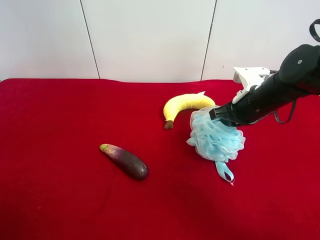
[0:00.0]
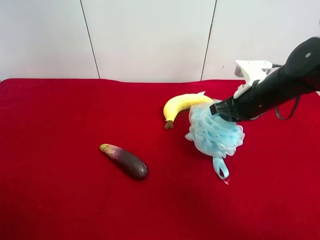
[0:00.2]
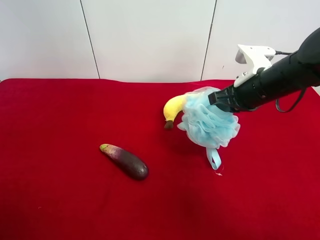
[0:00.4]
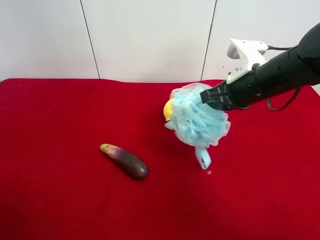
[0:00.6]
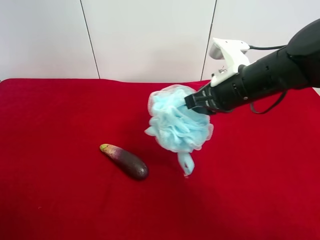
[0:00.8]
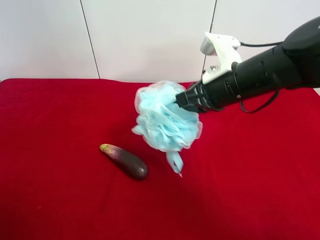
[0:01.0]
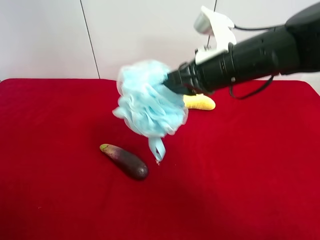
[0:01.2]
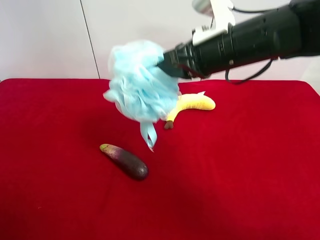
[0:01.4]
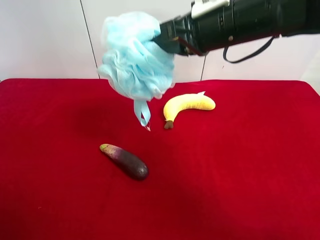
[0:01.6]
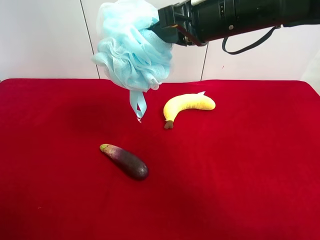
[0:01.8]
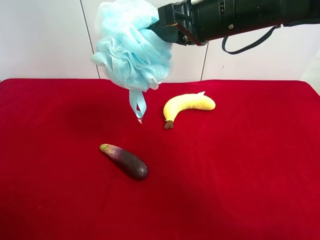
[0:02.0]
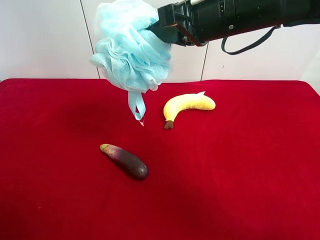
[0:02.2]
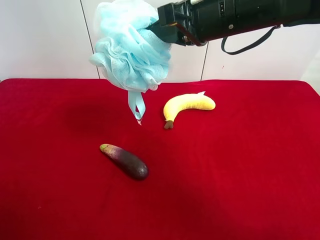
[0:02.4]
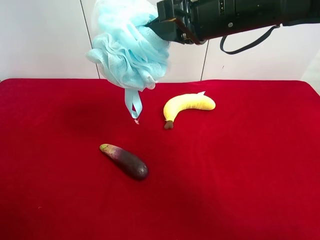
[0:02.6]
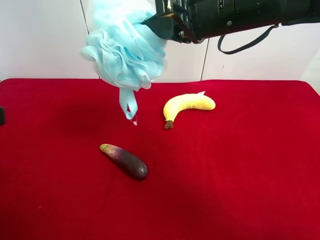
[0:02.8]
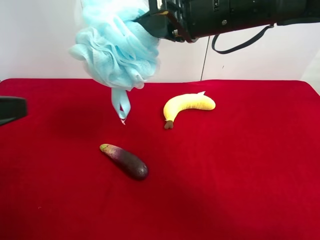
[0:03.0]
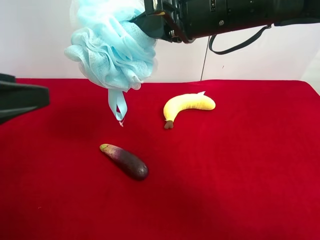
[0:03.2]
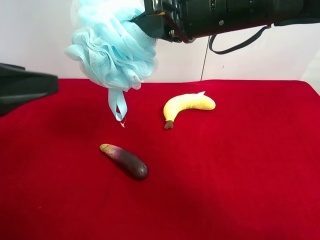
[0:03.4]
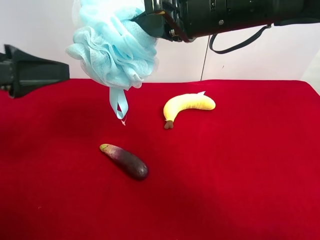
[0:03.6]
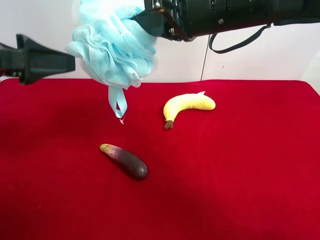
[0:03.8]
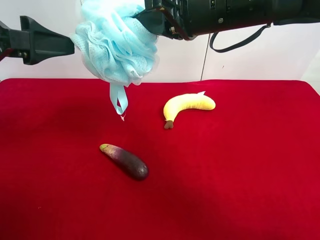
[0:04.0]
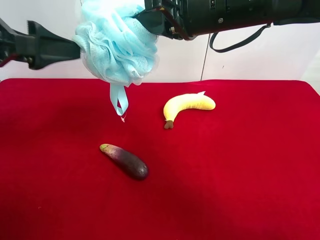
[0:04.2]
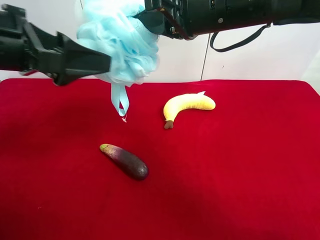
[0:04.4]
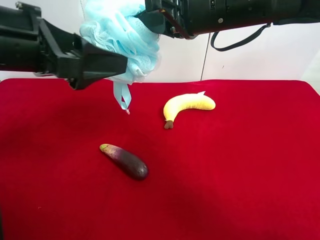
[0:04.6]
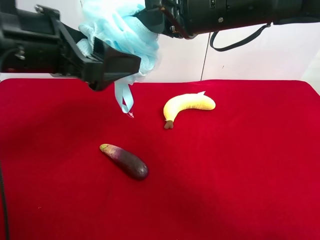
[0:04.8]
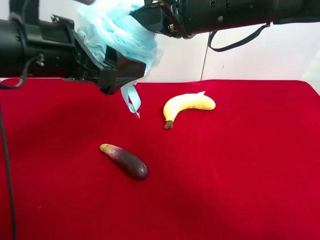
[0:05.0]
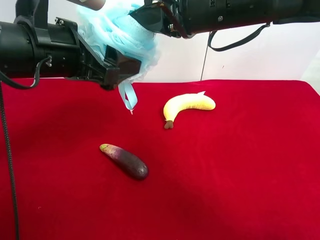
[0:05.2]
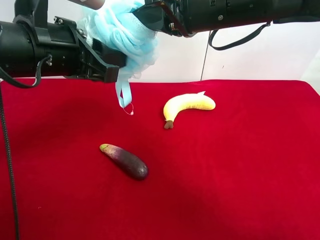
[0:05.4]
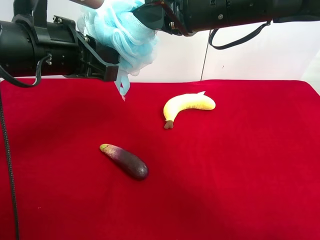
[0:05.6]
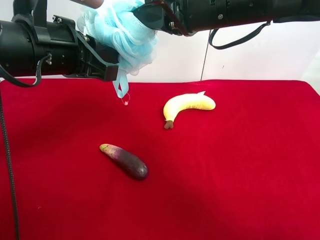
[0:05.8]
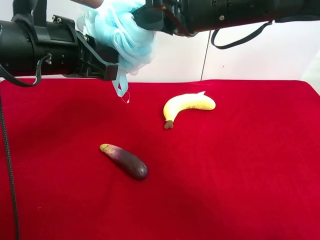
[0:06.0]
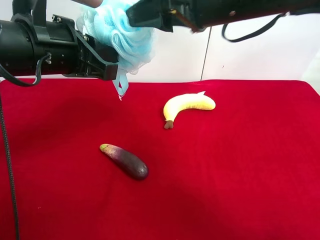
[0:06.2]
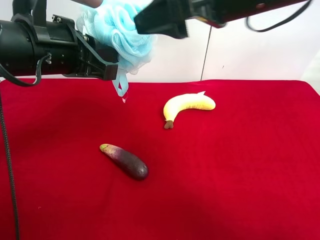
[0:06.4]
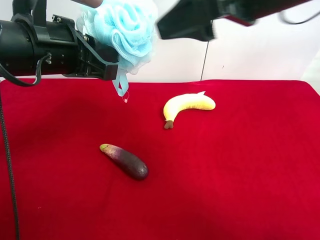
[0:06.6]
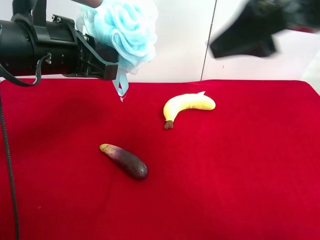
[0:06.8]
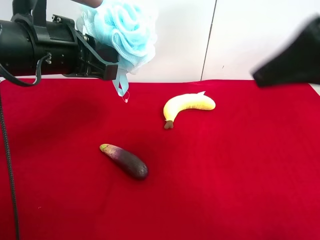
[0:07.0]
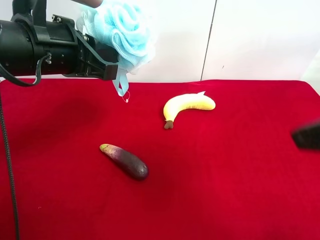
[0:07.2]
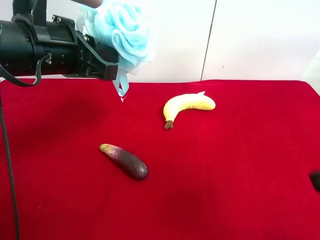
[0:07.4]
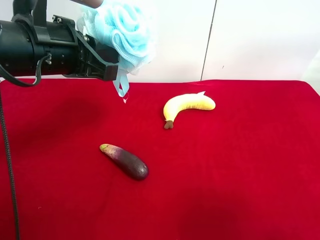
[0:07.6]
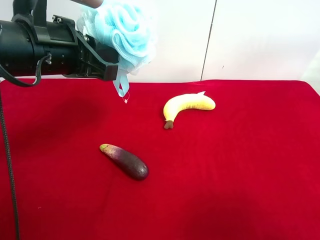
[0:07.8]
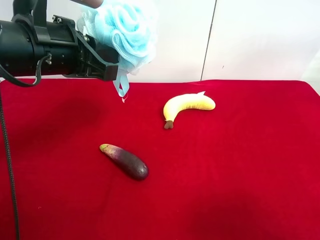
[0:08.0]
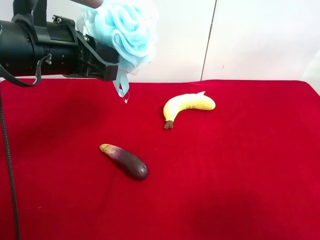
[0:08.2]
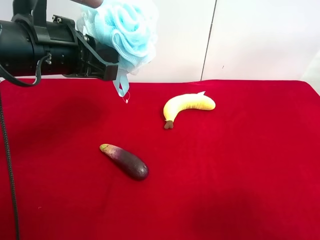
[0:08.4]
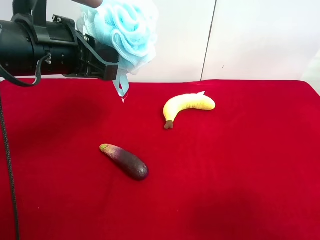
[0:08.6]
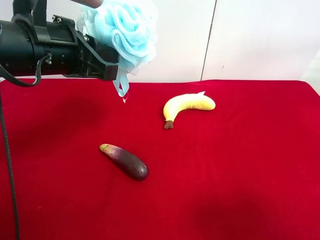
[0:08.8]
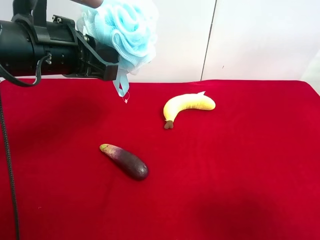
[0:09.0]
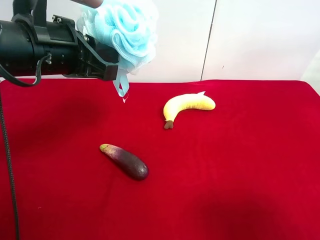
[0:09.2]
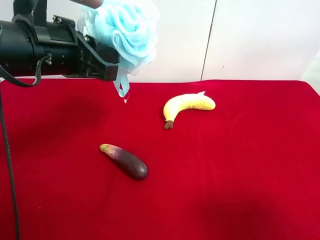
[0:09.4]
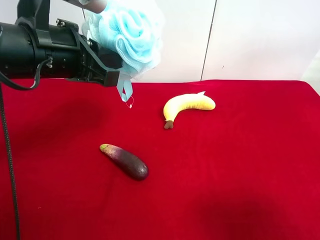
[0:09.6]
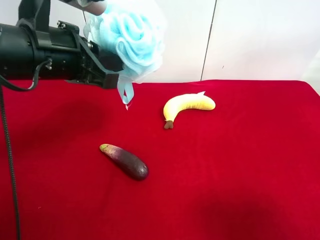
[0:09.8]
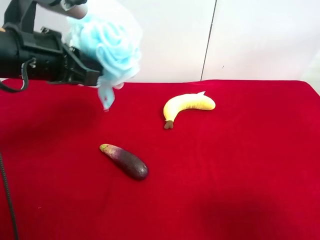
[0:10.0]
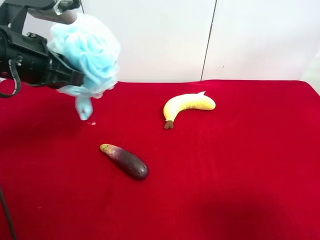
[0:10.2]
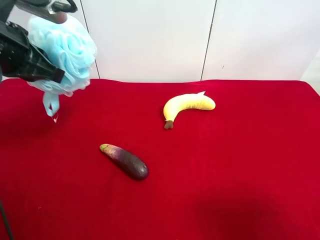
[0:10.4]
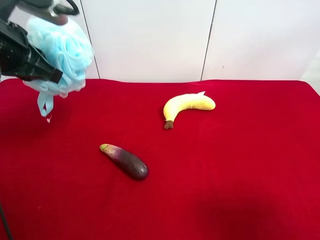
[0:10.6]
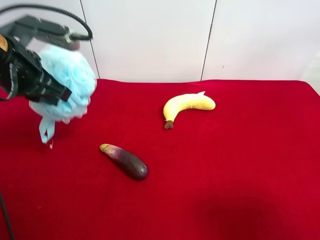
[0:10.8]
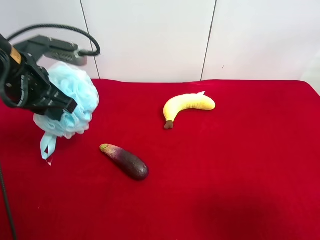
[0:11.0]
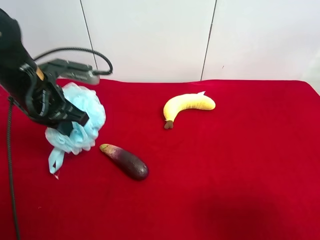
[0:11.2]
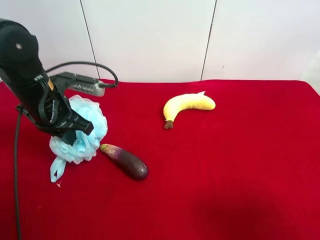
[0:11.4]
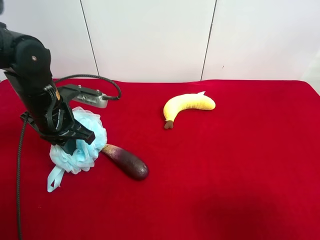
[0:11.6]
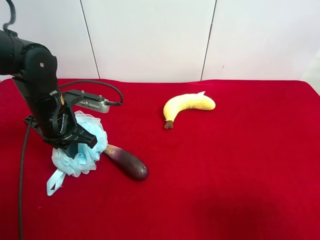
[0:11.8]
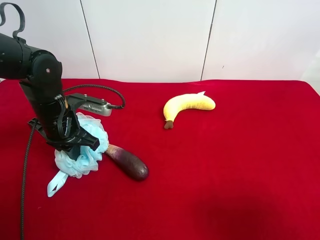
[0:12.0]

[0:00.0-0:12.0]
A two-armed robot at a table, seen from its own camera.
Task of the whole recording: use the right gripper to pick up the item and transfer it from the right gripper to the left gripper.
Step, 0:00.0 to 0:06.2: Pass the shower sphere to the left gripper.
0:00.0 to 0:01.6: The right gripper moves upward and to the left, about 20 cm.
0:01.6 to 0:03.0: The left gripper moves forward and to the right, approximately 10 cm.
0:03.0 to 0:04.4: The left gripper heads forward and to the right, covering some 10 cm.
0:04.4 to 0:06.0: The left gripper ends up approximately 5 cm from where it was, and closes up.
0:06.0 to 0:07.6: The right gripper goes approximately 30 cm backward and to the right, and opens its fingers.
0:09.0 to 0:10.4: The left gripper moves to the left, approximately 5 cm.
0:10.4 to 0:12.0: The left gripper goes about 15 cm downward.

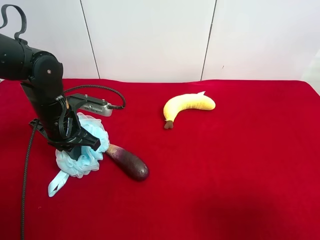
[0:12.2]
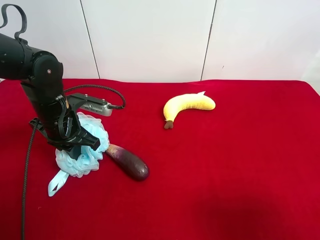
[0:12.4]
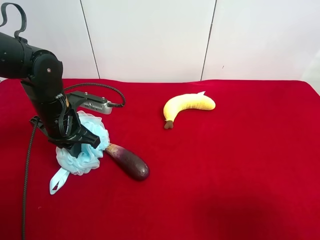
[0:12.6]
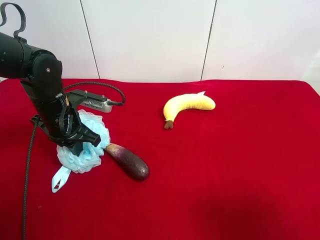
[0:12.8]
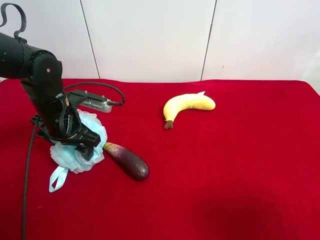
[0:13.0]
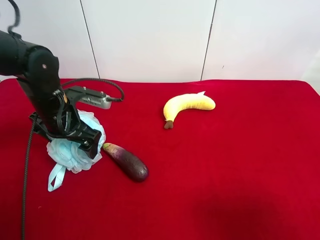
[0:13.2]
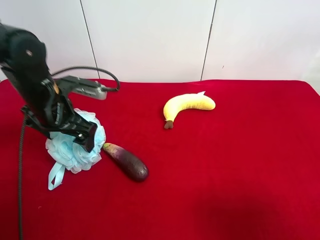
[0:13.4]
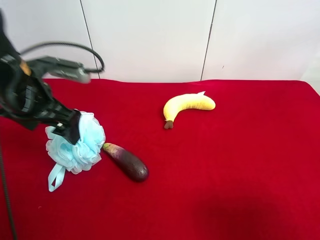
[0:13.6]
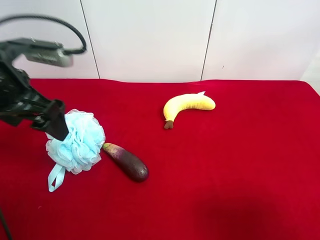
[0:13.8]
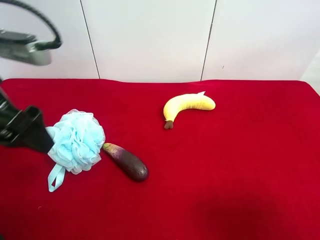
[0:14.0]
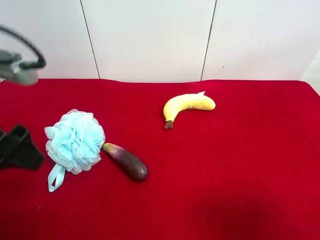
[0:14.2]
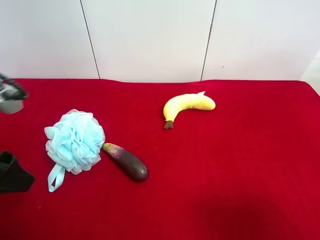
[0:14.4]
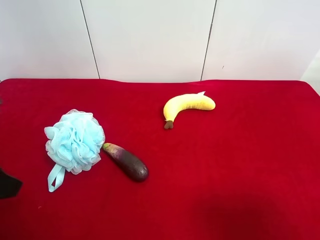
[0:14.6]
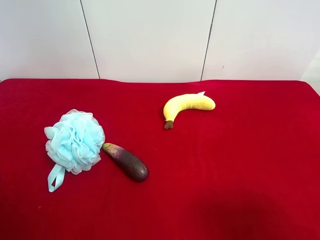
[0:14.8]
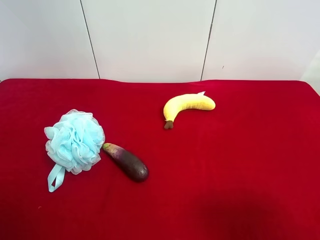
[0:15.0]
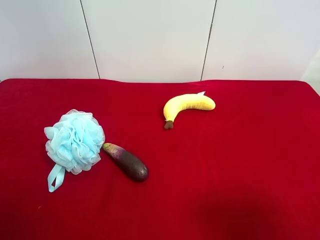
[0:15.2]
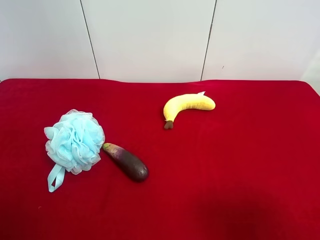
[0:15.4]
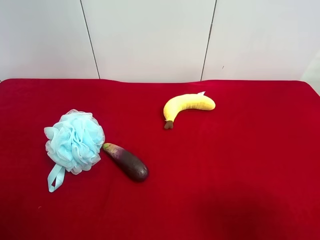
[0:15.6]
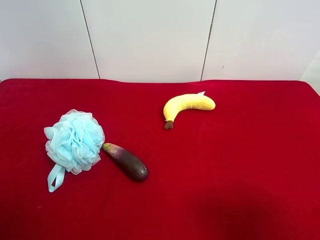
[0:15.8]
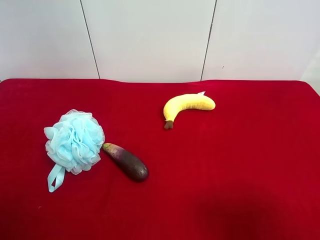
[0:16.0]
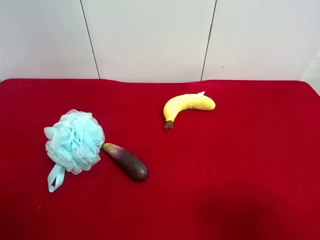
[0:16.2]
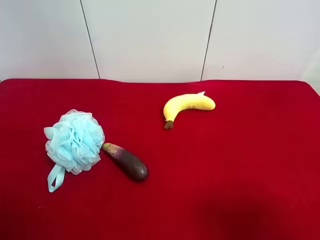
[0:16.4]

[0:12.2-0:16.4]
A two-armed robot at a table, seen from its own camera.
Task of the whole recording: use the right gripper to pick up the item and transfer it from the right gripper to the left gripper.
0:12.2 to 0:13.6: The left gripper shifts some 10 cm upward, and opens.
0:13.6 to 0:15.0: The left gripper shifts some 20 cm backward and to the left.
